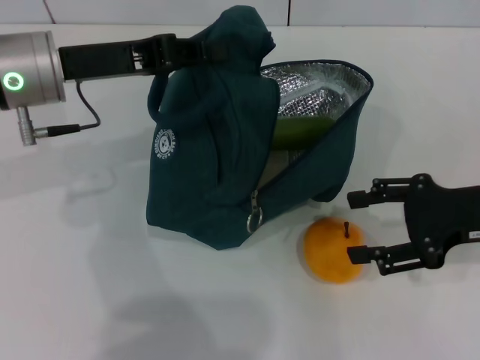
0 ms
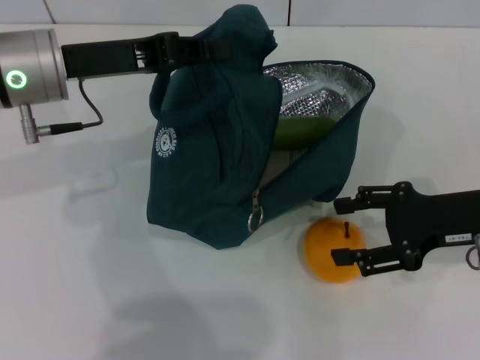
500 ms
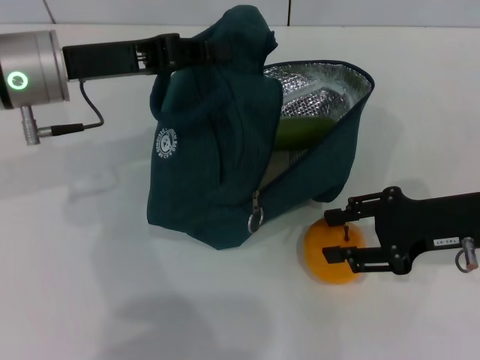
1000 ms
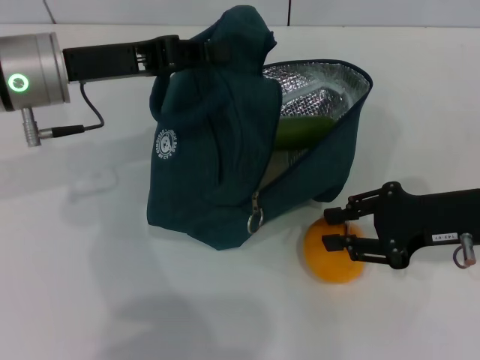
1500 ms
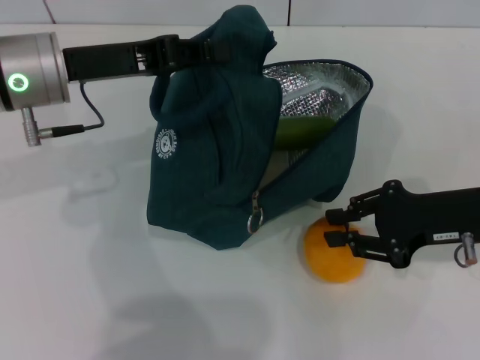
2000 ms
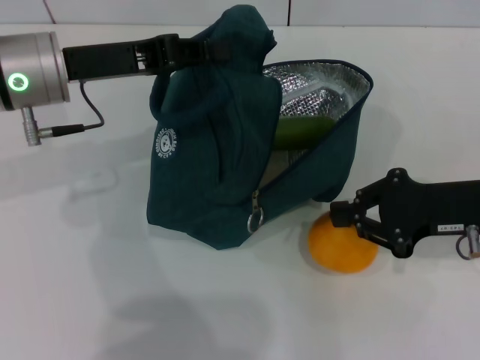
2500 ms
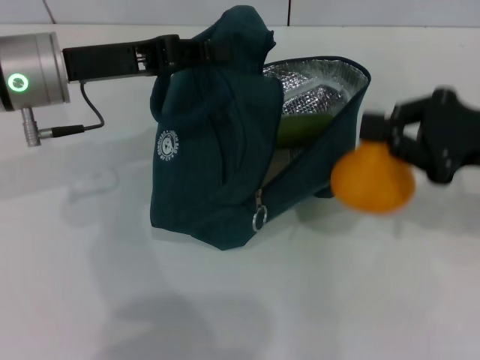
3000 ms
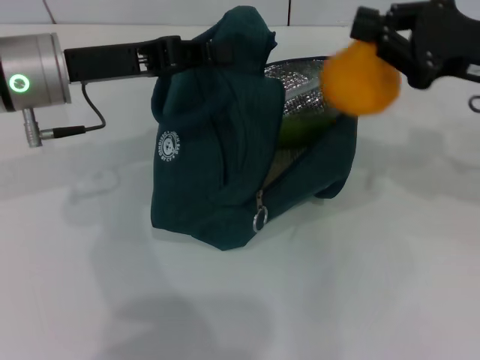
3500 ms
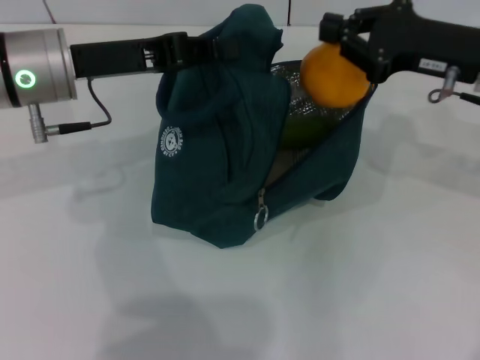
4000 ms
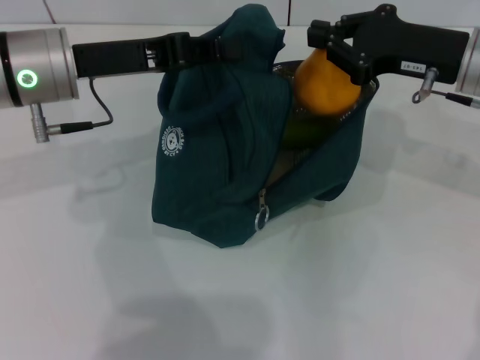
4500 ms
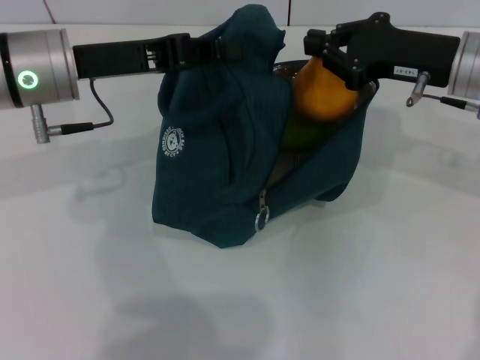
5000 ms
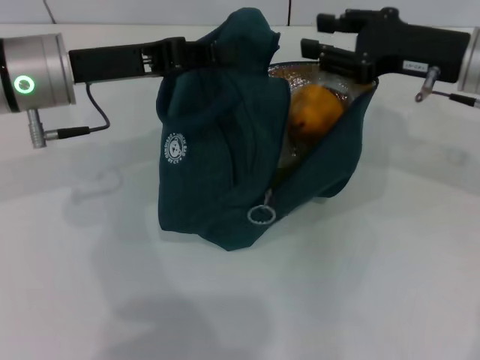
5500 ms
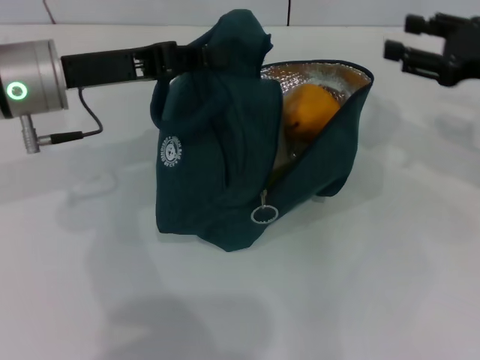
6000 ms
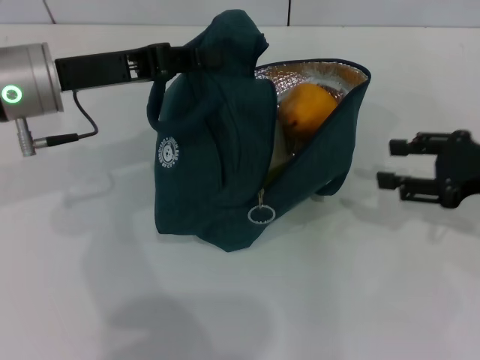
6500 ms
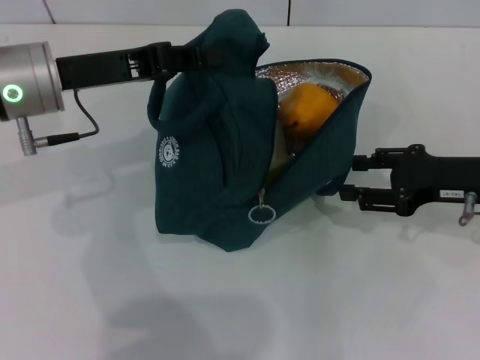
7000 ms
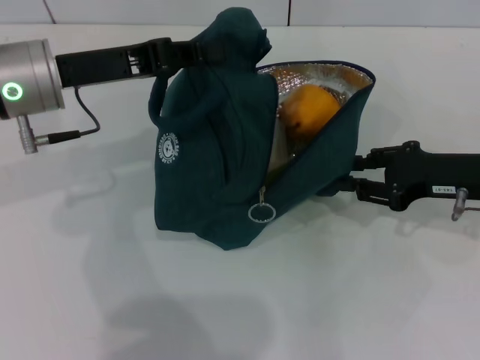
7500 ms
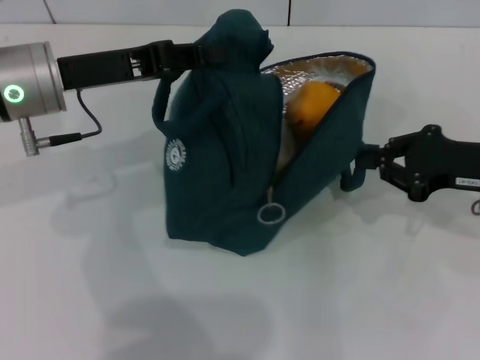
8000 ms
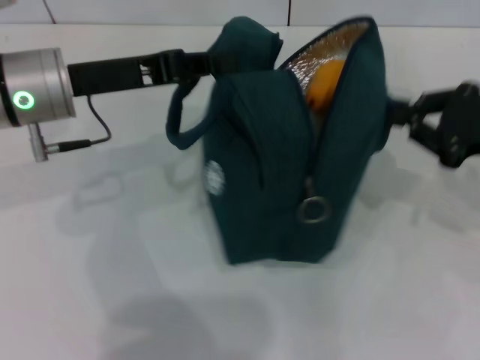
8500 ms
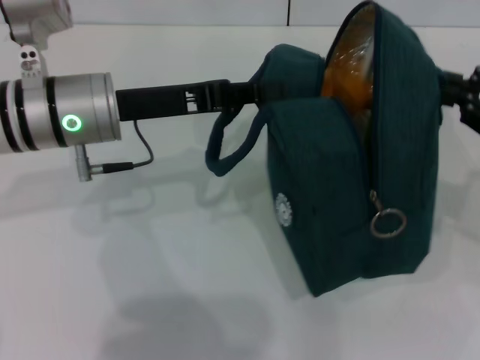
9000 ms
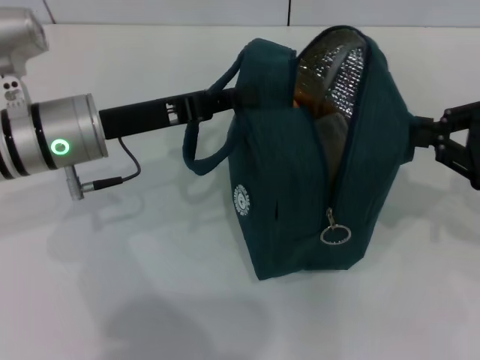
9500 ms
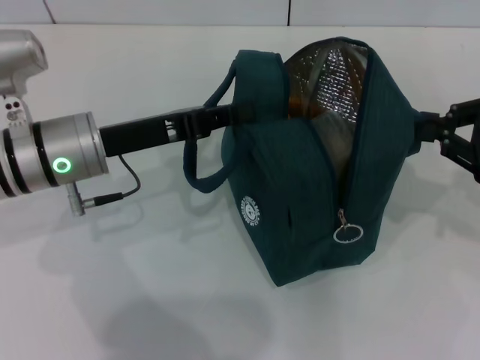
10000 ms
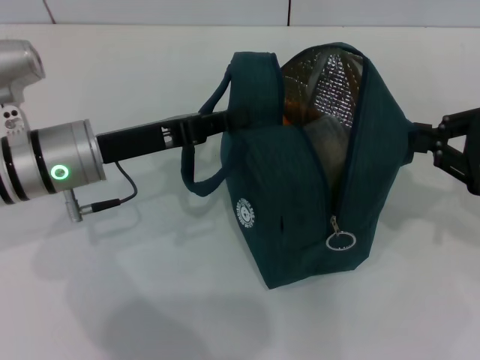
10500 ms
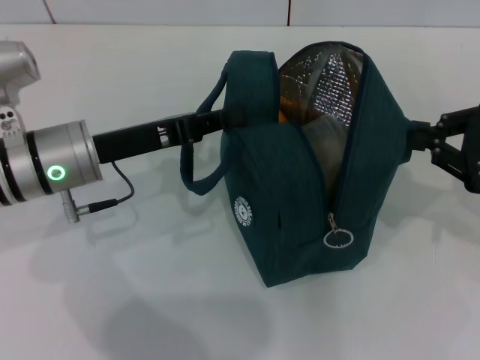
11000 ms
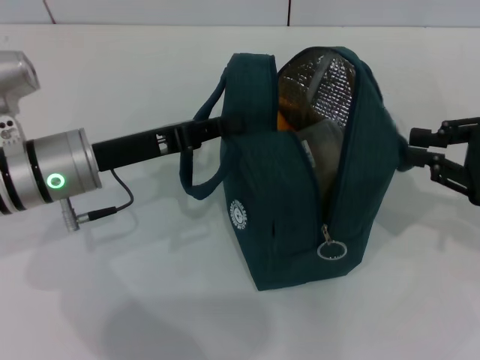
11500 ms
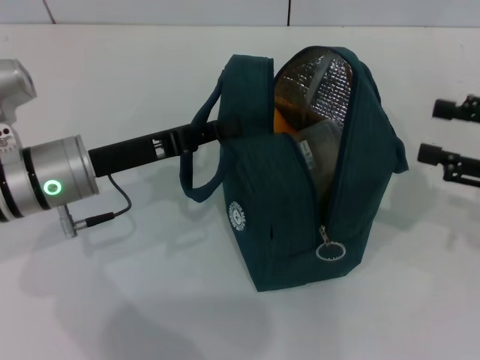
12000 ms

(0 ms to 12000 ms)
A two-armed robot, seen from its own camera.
Step, 0 ms - 2000 ms: Grab the pear with your right hand.
Step, 5500 ms - 11500 ms: Hold the lunch bag with your right hand.
0 ms - 2000 ms: The right gripper closes up.
2000 ms - 4000 ms: The right gripper moves forward and upward, roughly 10 cm.
4000 ms - 6000 ms: The right gripper heads to the right, covering approximately 5 cm, and opens.
6000 ms - 8000 ms: The right gripper moves downward, approximately 5 cm, and closes up.
8000 ms - 10000 ms: The left gripper is displaced downward by approximately 5 cm. Meanwhile the right gripper changes place by approximately 5 cm.
10000 ms - 12000 ms: The right gripper opens up.

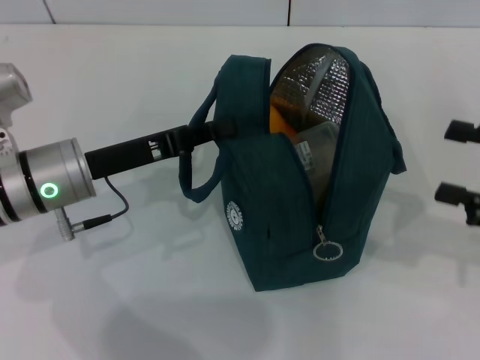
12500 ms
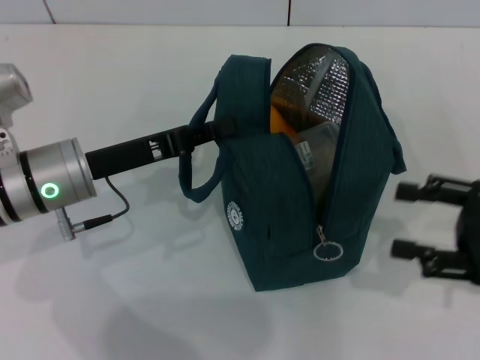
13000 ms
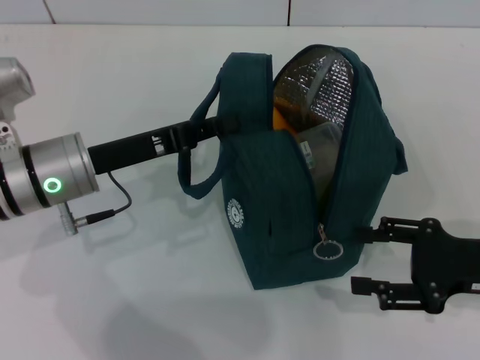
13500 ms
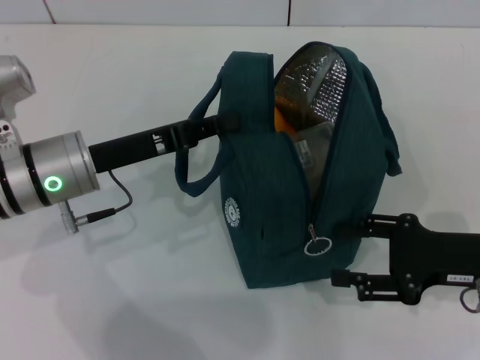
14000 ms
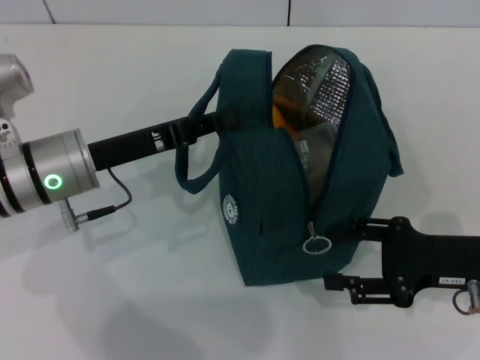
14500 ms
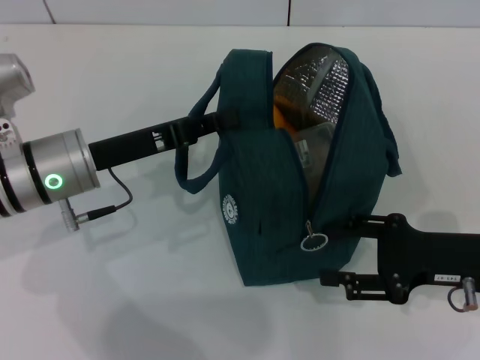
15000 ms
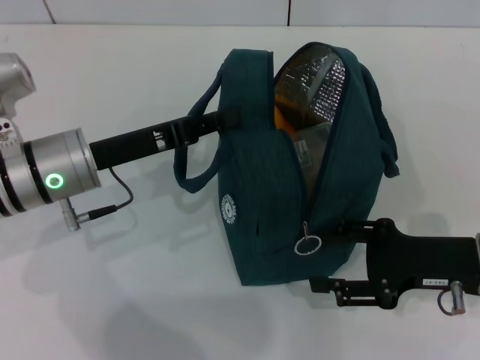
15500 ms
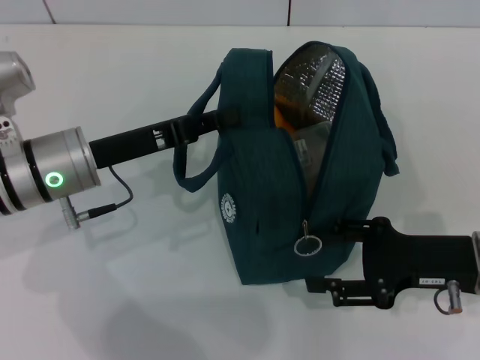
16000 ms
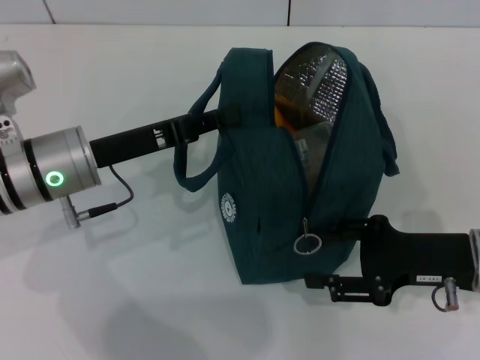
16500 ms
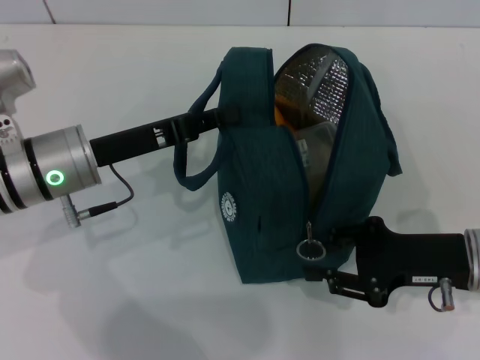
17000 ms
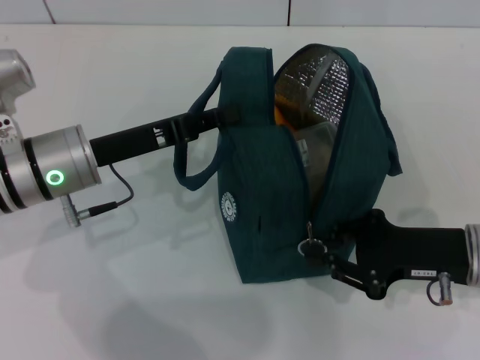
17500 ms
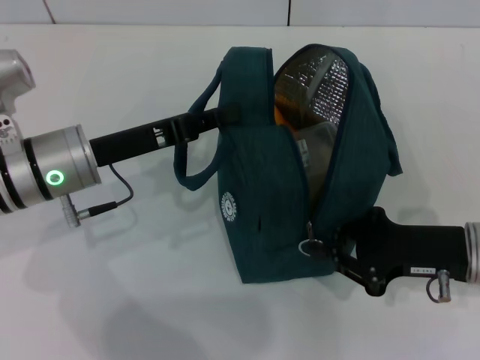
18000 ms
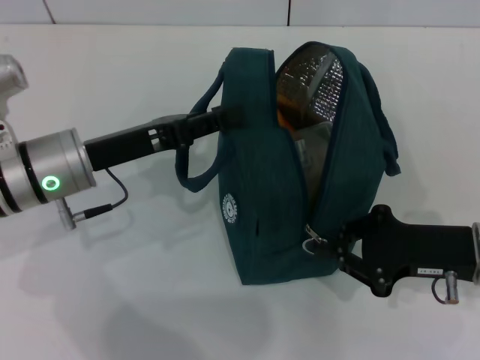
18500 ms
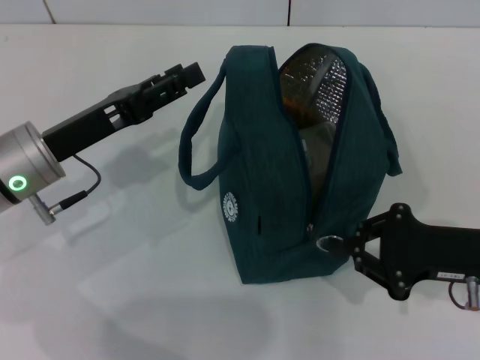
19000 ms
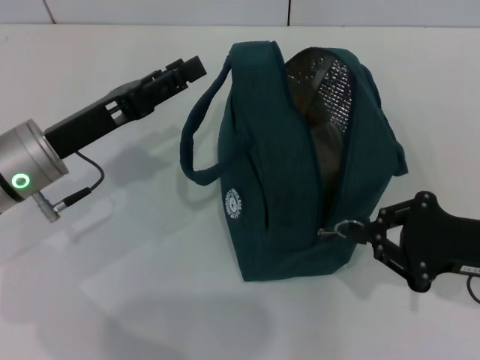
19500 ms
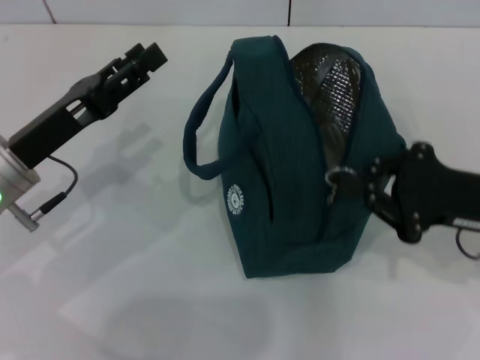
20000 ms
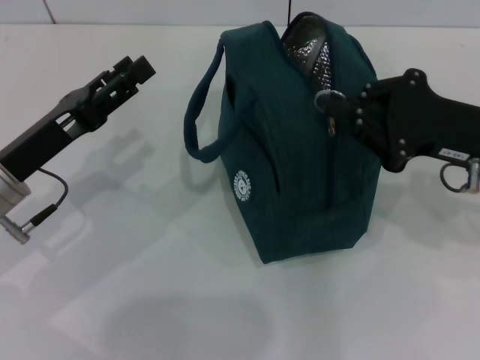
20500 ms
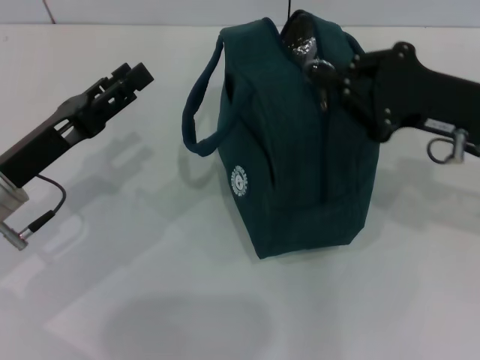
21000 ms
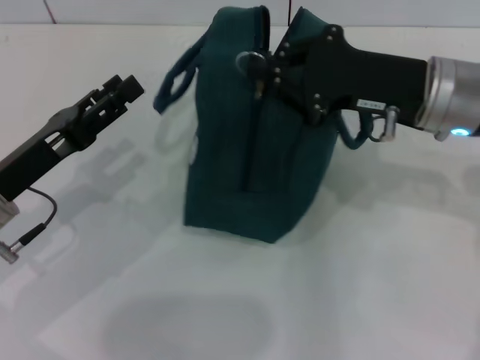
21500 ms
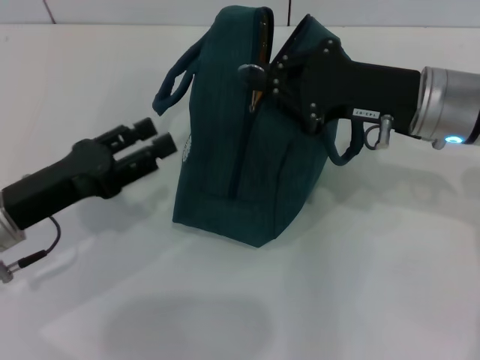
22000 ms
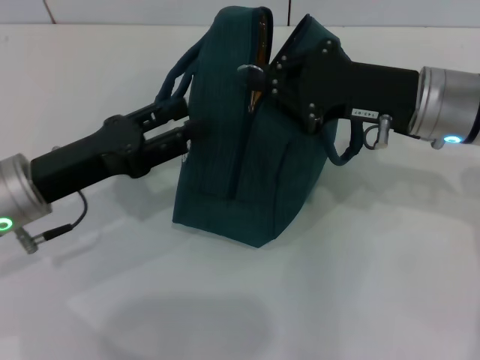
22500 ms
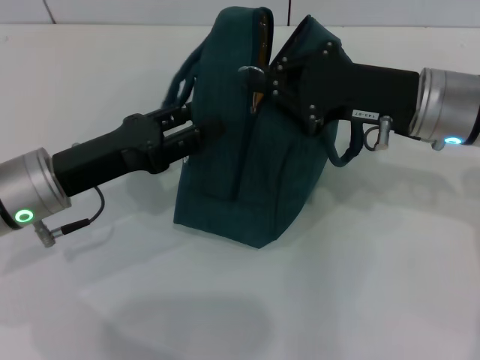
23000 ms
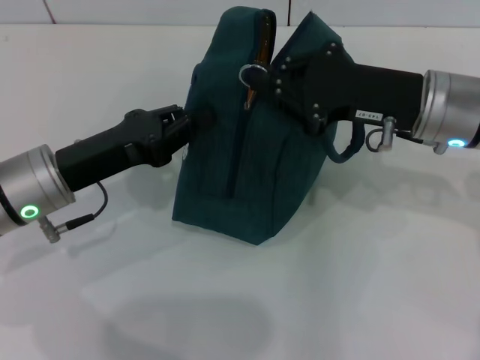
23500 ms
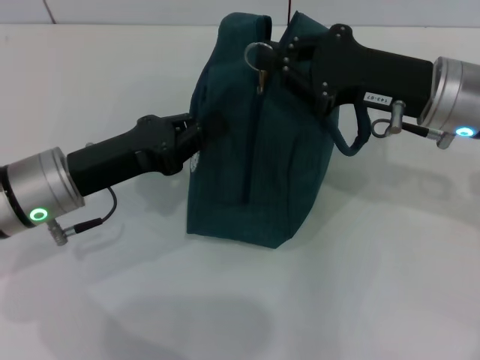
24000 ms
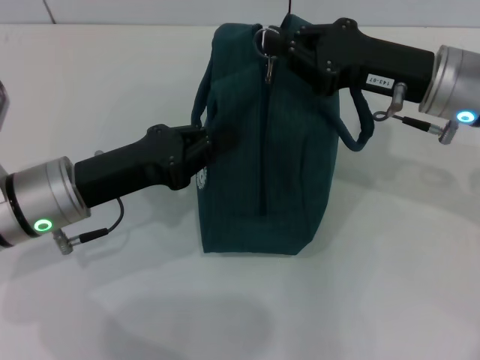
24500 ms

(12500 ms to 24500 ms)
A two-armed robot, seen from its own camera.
12500 ms - 14500 ms: The right gripper goes roughly 10 cm downward and to the left.
14500 ms - 16500 ms: The grippers move only a little.
16500 ms - 18500 ms: The right gripper closes.
18500 ms - 20500 ms: The left gripper moves some 5 cm, and opens up; the right gripper heads upward, covering about 5 cm.
20500 ms - 22500 ms: The right gripper heads to the left, covering some 5 cm.
22500 ms - 24500 ms: The left gripper closes up.

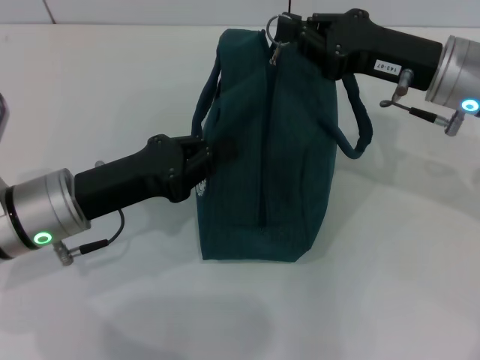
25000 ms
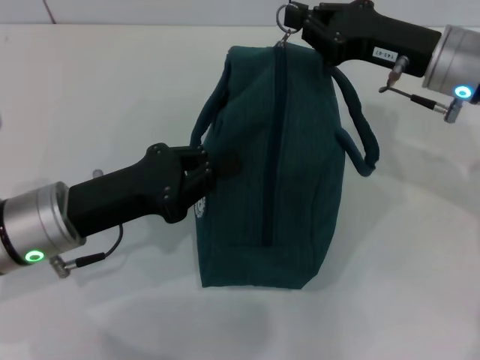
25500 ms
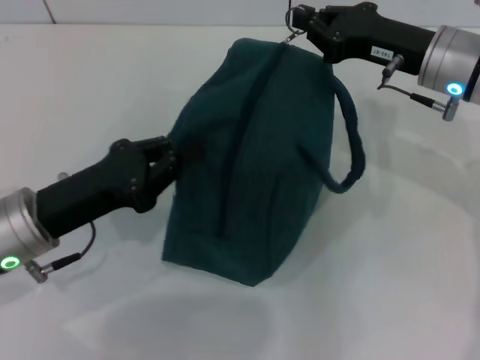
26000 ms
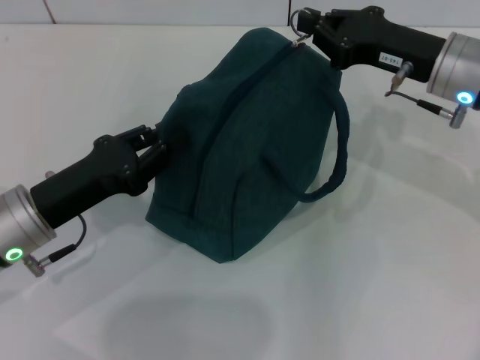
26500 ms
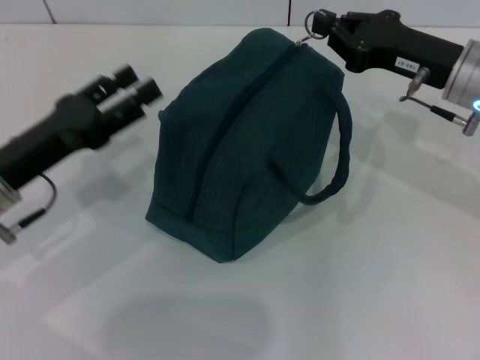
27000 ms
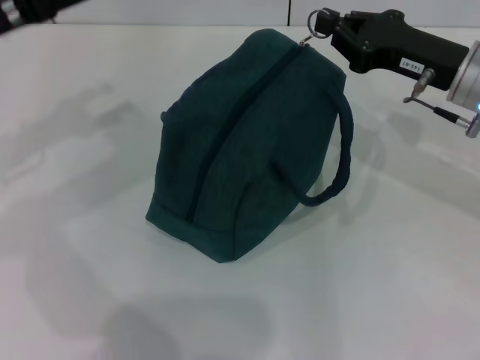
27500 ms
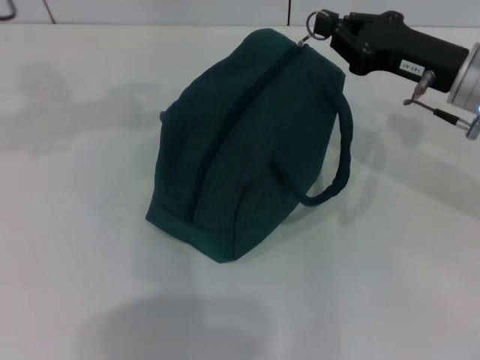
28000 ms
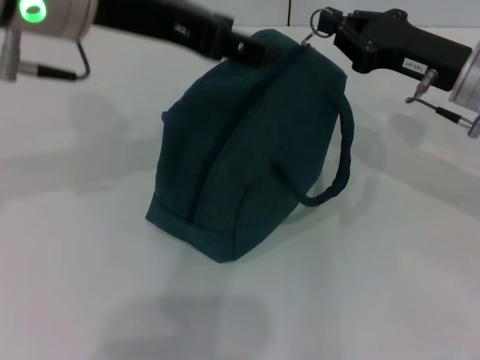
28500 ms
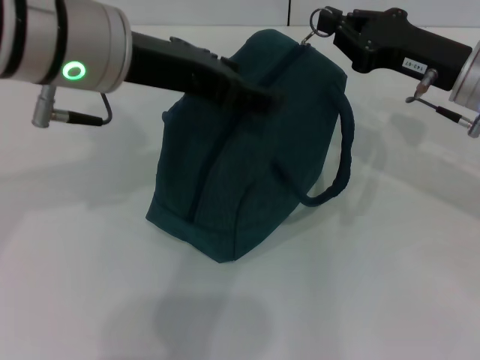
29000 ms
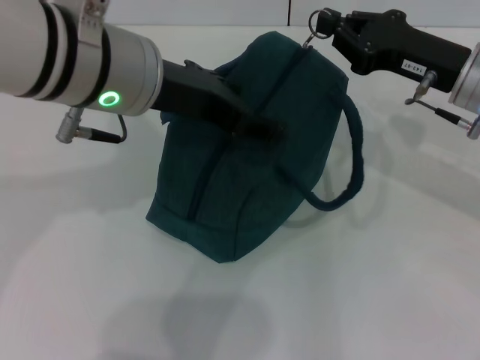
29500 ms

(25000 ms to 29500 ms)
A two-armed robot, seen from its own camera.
25000 ms - 27000 ms: The left gripper heads to the left, covering roughly 5 cm, and opens its fingers.
27000 ms - 29500 ms: The left gripper moves upward and to the right, about 20 cm.
